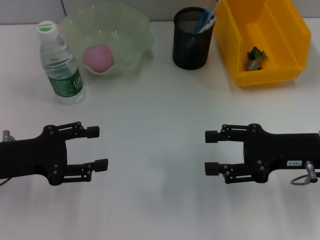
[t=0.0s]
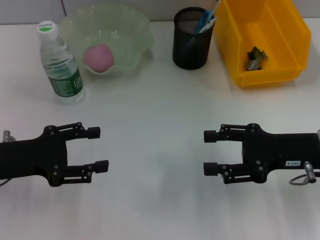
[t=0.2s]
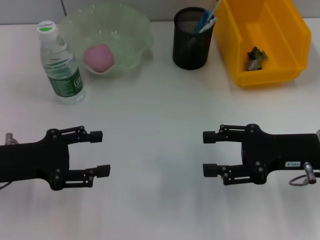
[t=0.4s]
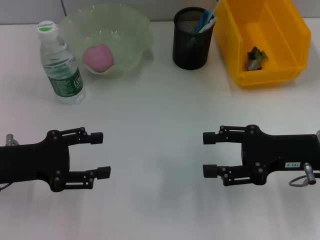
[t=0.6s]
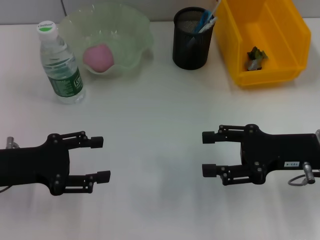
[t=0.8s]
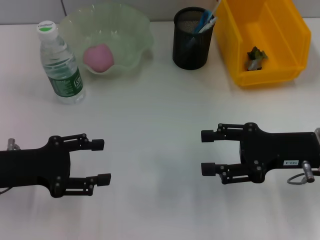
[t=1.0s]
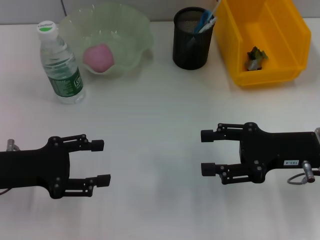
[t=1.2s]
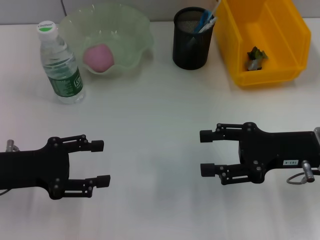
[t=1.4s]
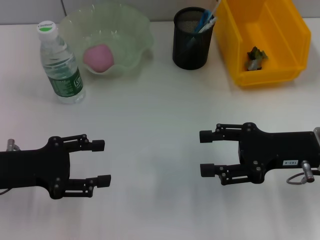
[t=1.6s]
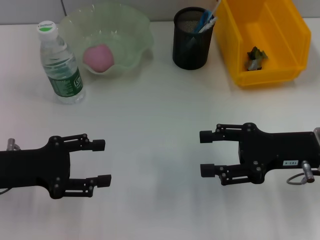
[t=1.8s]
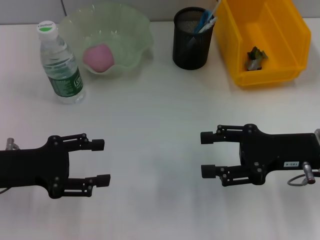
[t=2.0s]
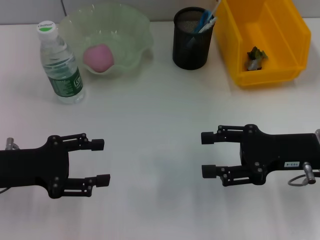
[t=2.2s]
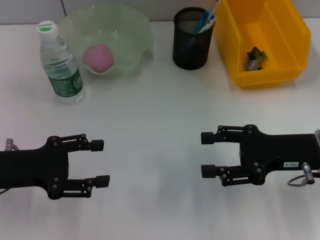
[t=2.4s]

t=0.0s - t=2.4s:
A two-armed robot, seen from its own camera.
t=0.0s - t=2.4s: Both grippers stay put.
